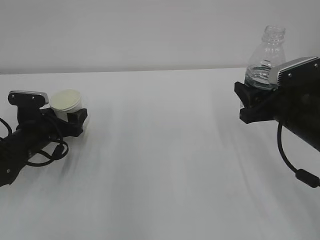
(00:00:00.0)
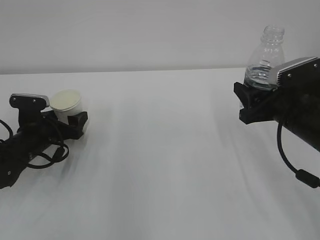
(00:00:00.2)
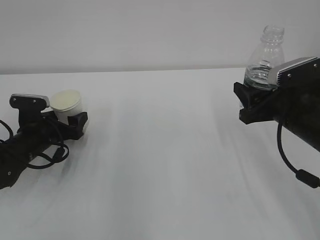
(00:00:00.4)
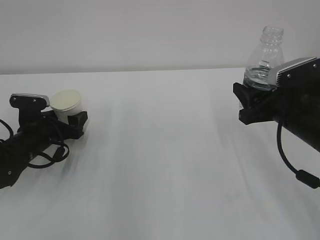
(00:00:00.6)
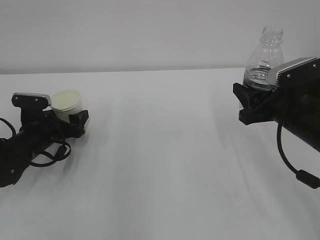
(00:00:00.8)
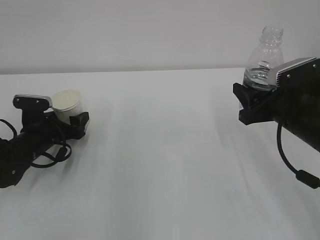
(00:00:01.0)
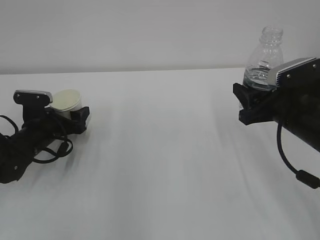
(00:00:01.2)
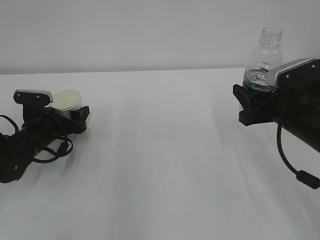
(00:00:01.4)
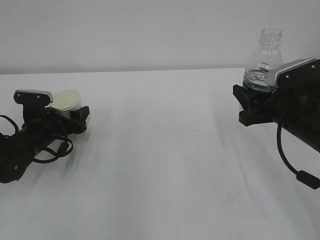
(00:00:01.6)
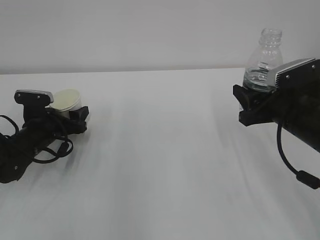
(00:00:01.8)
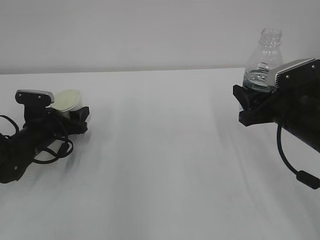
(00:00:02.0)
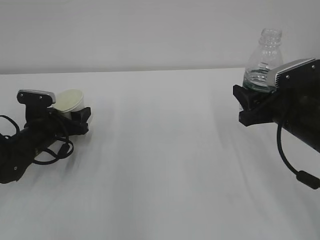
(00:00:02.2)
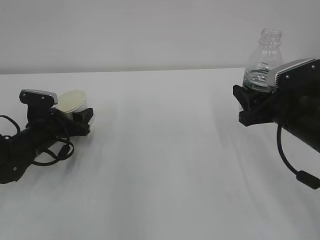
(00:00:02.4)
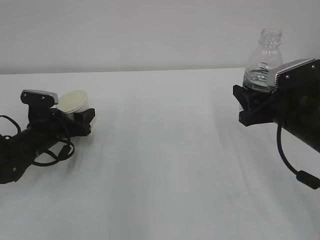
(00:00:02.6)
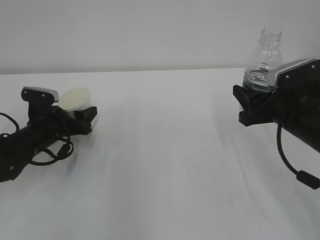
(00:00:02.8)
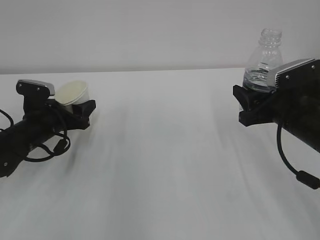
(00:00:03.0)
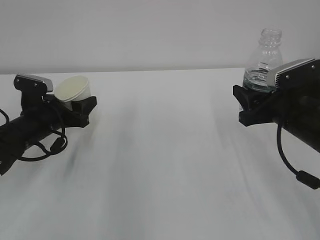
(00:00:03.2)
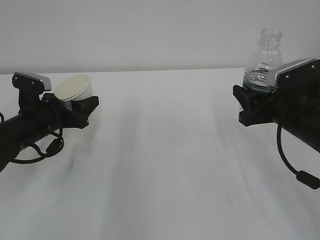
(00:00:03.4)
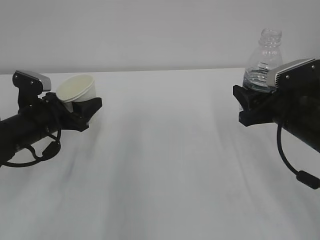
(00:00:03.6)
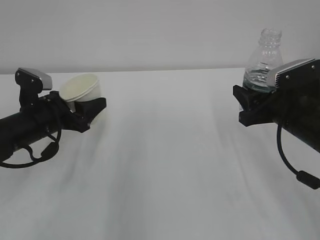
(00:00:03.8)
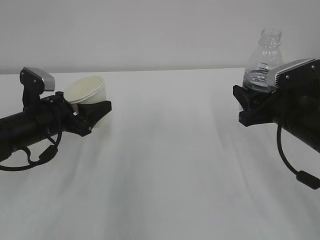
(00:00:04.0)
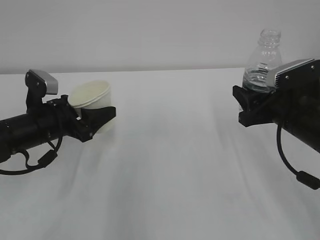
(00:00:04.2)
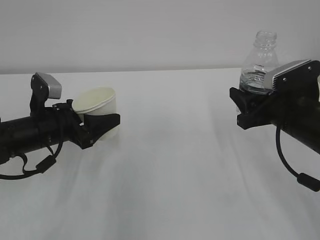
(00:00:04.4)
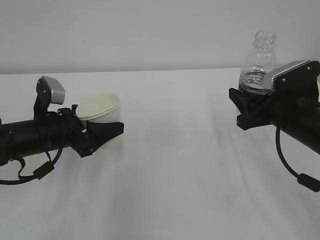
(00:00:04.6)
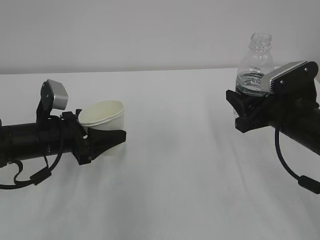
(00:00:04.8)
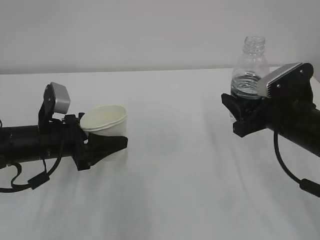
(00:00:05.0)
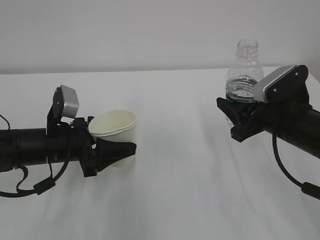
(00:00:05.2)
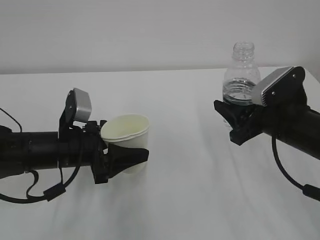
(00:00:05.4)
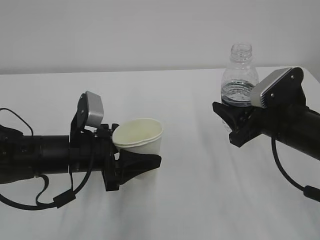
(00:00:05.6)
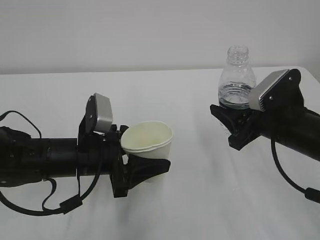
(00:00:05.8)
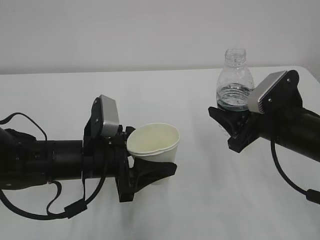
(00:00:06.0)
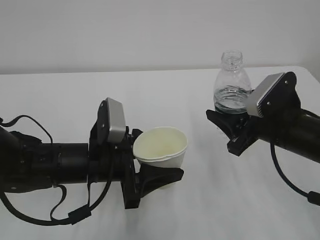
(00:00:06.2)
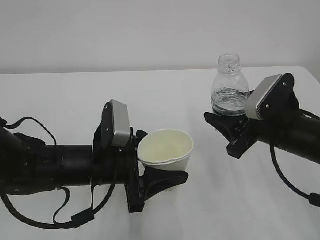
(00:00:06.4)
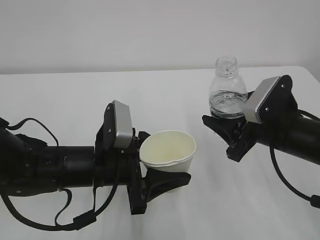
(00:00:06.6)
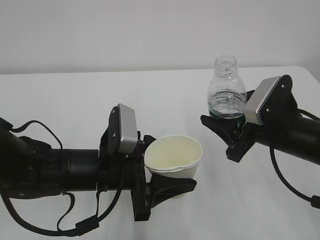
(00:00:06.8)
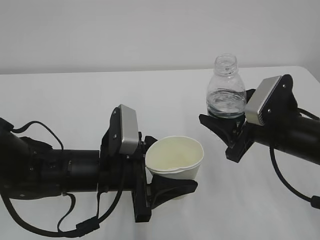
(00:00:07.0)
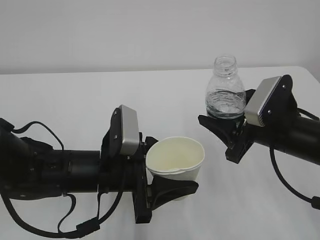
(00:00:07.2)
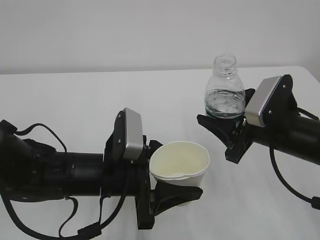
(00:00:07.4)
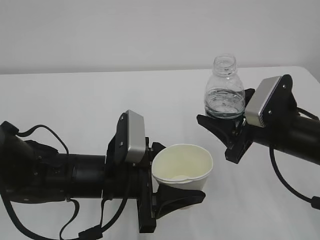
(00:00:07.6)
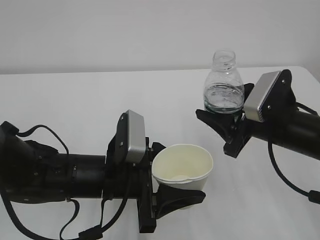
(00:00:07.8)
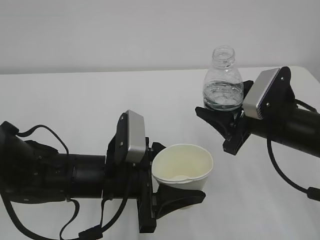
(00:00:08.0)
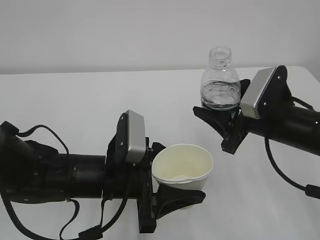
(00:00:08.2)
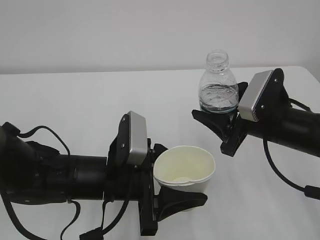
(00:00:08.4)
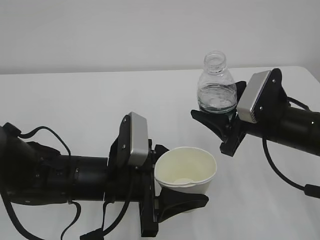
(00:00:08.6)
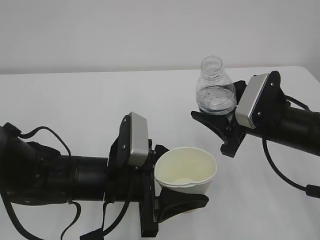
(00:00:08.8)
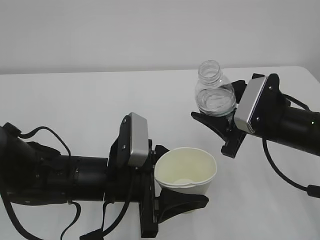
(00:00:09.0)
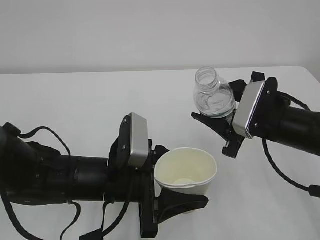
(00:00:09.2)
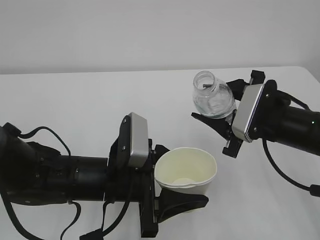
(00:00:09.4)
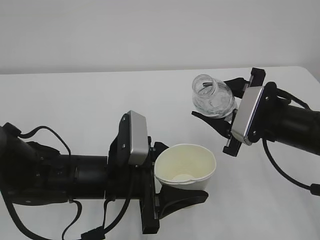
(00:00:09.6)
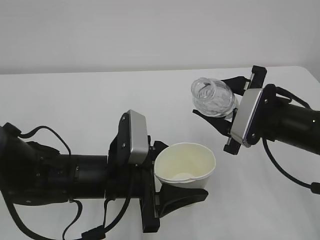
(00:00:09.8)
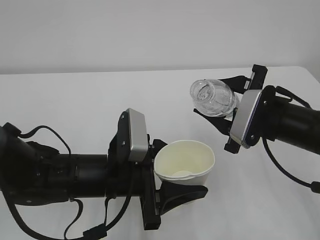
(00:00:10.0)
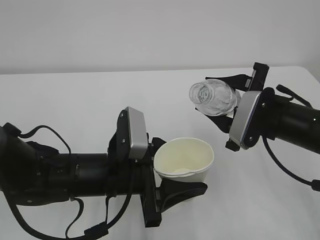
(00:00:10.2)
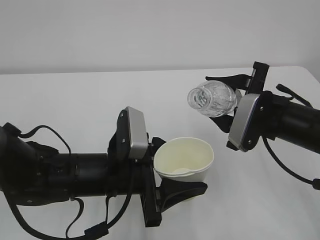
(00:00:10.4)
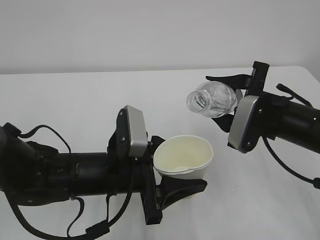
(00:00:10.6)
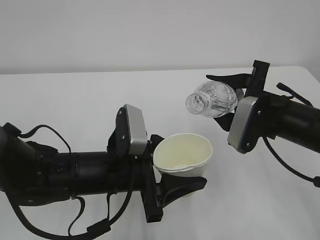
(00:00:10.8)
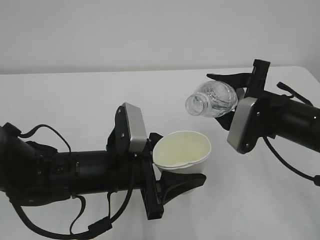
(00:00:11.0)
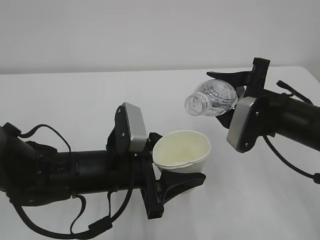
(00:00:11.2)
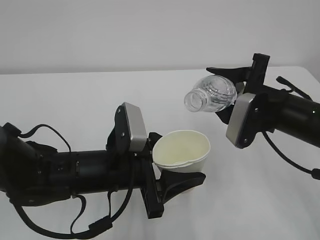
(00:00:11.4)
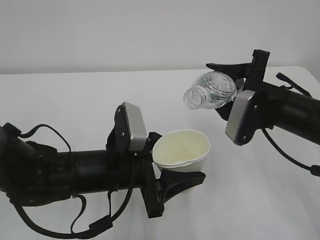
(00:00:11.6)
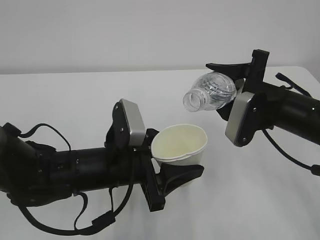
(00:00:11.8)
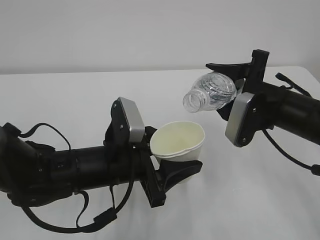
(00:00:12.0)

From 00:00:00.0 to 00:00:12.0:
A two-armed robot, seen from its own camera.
From 00:00:00.0 to 00:00:01.6: The grippers move only a little.
From 00:00:01.6 to 00:00:03.0: The left gripper closes.
From 00:00:03.0 to 00:00:04.4: The left gripper changes place by roughly 5 cm.
From 00:00:04.4 to 00:00:06.0: The left gripper is displaced to the right and backward by about 10 cm.
From 00:00:06.0 to 00:00:07.6: The left gripper ends up about 5 cm from where it was.
From 00:00:07.6 to 00:00:09.0: The grippers move only a little.
From 00:00:10.4 to 00:00:12.0: The grippers stay close to where they were, moving slightly.

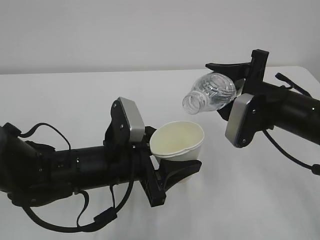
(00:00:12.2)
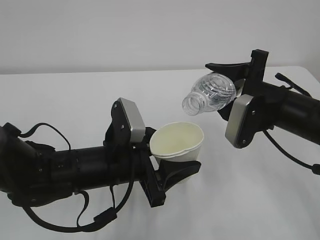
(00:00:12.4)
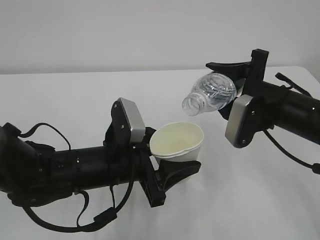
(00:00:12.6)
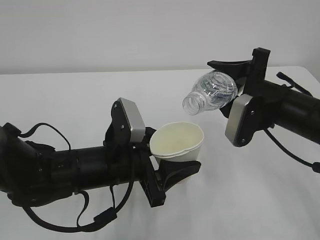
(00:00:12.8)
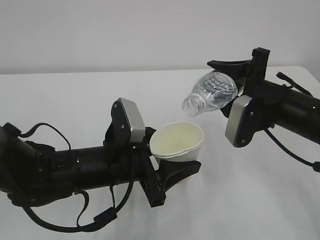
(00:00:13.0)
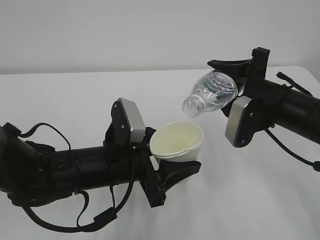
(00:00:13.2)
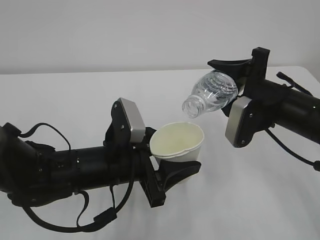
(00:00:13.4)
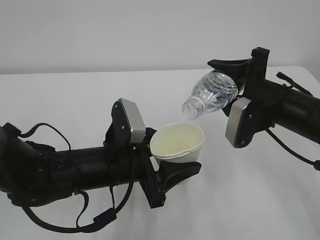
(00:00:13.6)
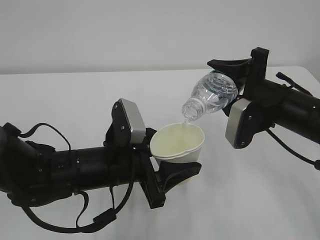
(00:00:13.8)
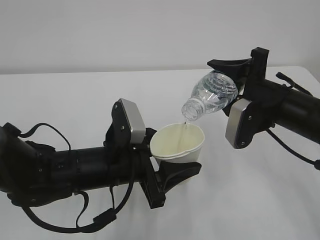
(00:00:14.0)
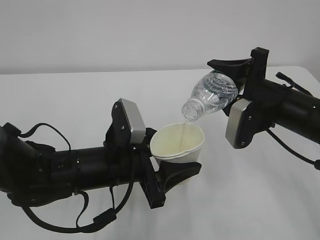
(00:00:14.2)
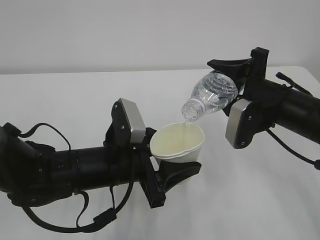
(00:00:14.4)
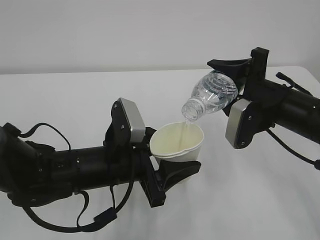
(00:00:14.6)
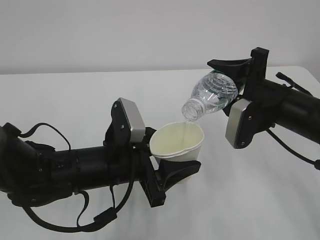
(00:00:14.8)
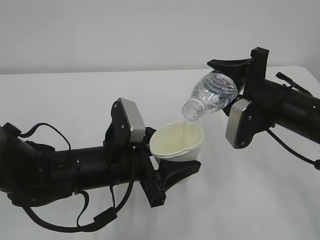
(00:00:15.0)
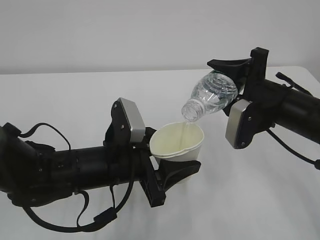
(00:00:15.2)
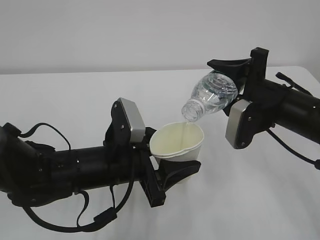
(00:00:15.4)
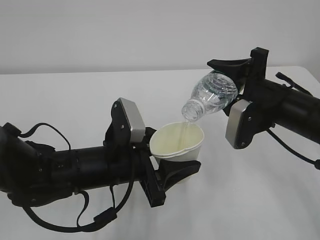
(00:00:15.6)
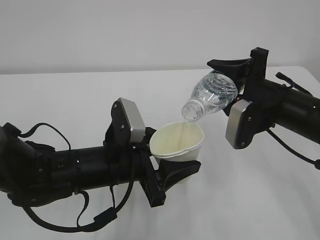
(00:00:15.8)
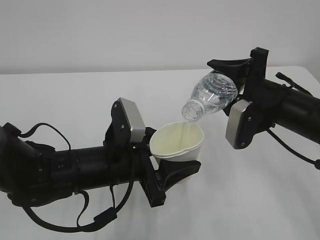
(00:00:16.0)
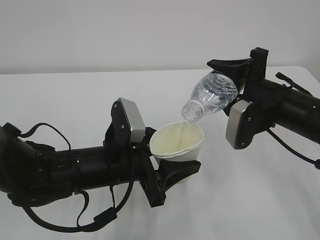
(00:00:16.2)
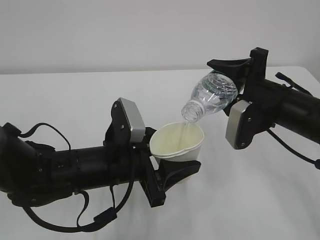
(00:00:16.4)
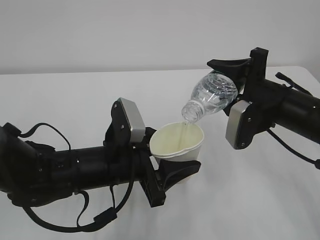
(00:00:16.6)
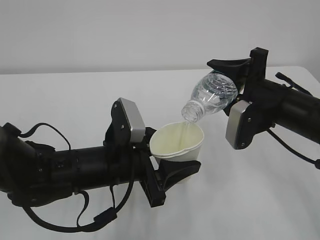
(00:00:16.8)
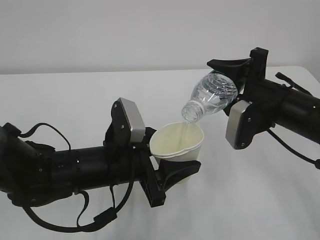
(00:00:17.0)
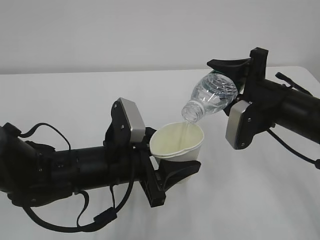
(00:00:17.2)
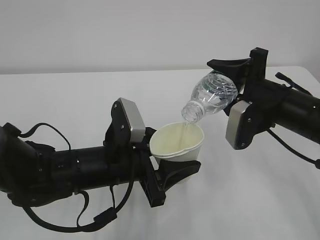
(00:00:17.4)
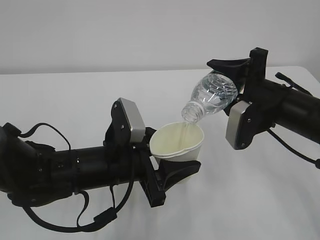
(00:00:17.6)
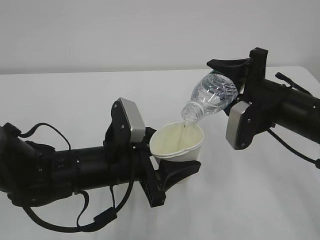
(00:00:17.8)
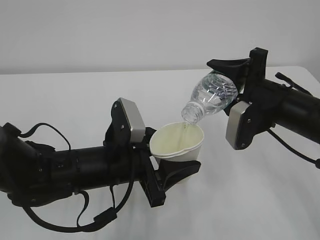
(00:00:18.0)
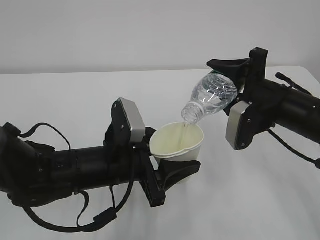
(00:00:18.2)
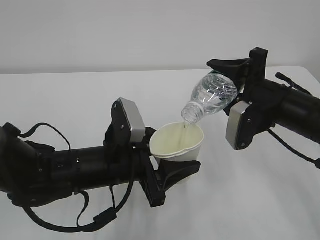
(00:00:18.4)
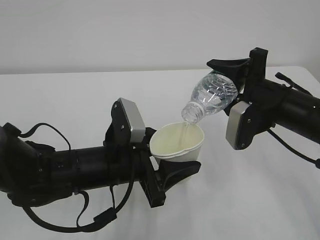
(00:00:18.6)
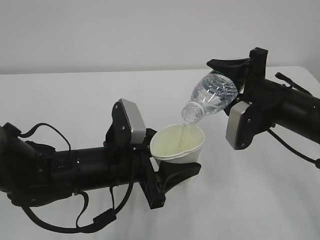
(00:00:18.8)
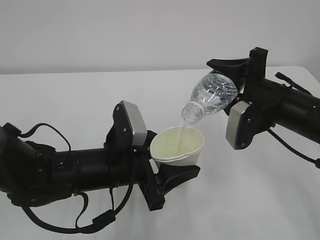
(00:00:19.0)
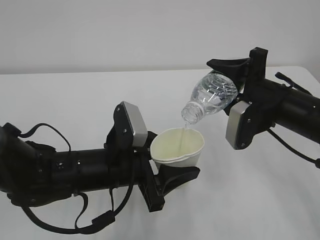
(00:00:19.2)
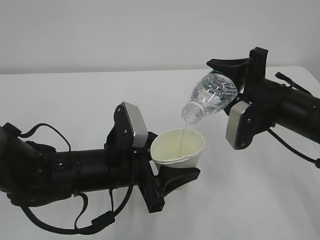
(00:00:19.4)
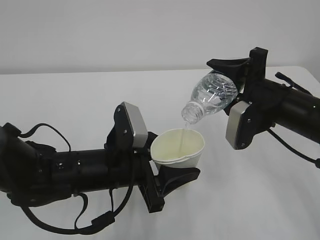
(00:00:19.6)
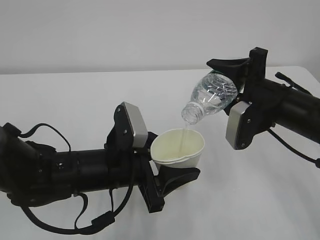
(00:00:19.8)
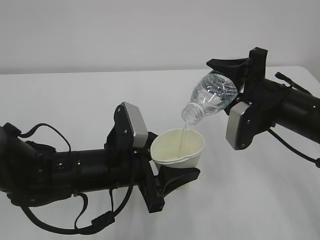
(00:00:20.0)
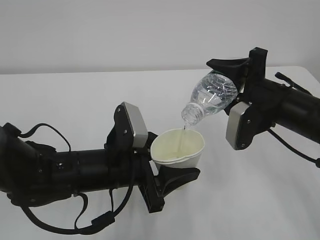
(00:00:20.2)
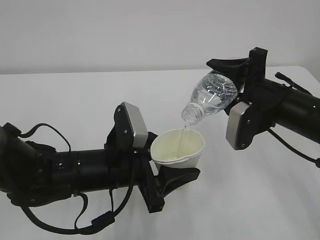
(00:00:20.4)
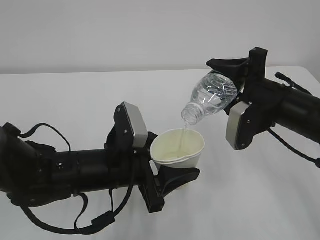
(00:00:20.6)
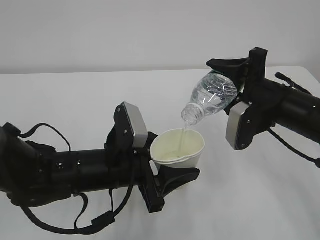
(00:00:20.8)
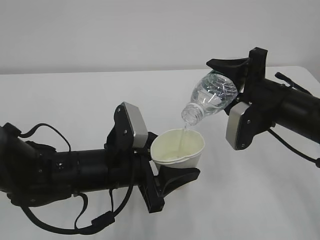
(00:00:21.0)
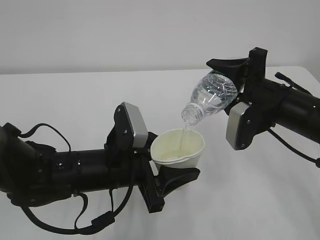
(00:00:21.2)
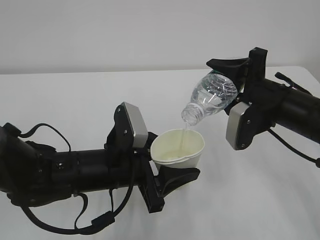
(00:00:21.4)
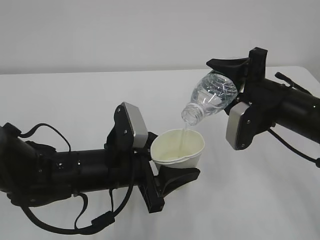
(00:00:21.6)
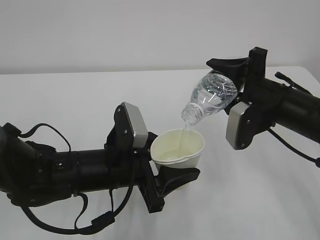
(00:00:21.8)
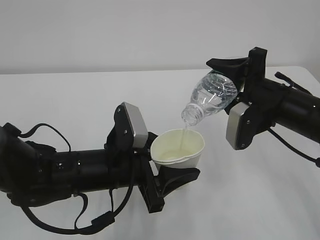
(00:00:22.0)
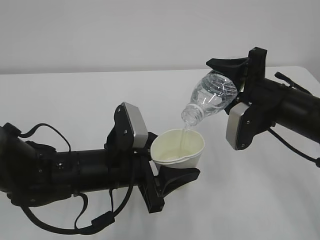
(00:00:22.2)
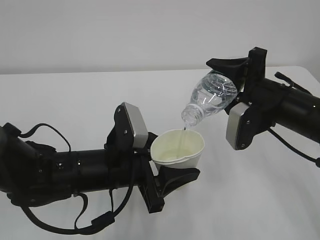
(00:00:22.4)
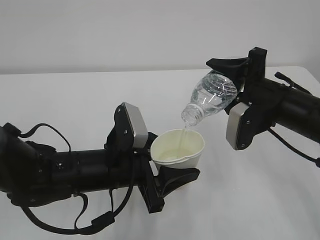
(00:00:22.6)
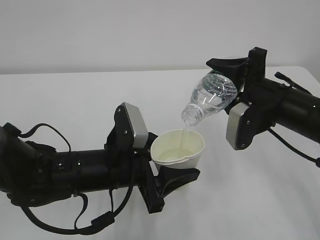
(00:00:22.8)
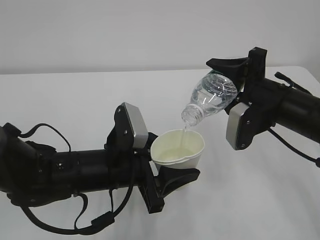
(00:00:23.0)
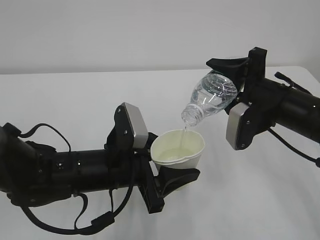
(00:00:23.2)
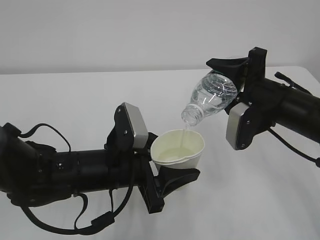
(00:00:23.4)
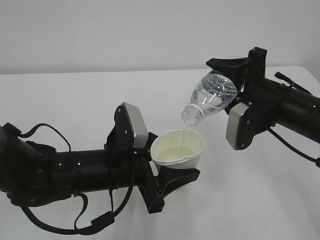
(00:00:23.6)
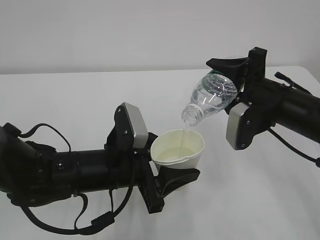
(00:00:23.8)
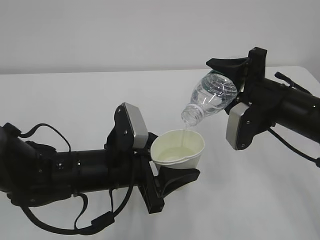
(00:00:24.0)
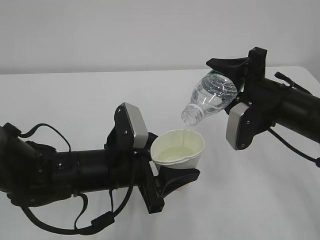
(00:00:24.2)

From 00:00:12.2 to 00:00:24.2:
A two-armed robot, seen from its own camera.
From 00:00:12.2 to 00:00:13.8: There are only small adjustments of the grippers.
From 00:00:13.8 to 00:00:19.8: Both grippers stay about where they are.
From 00:00:19.8 to 00:00:24.2: Neither gripper changes place.
